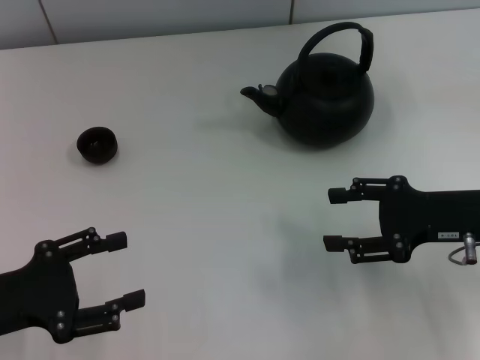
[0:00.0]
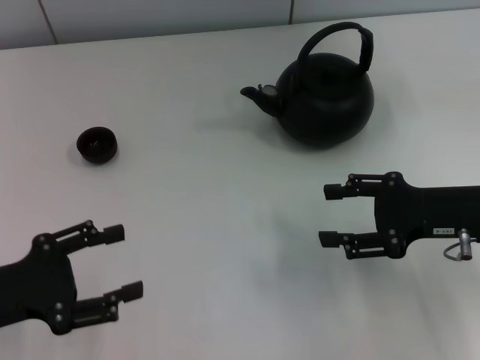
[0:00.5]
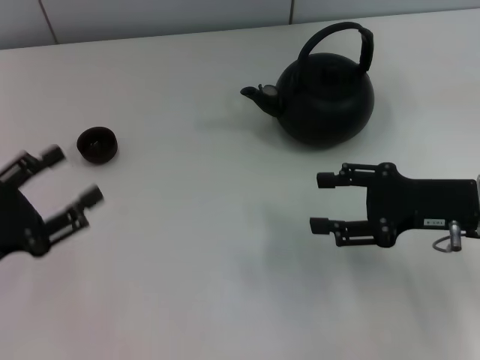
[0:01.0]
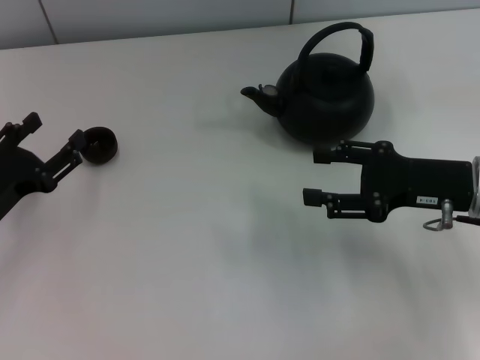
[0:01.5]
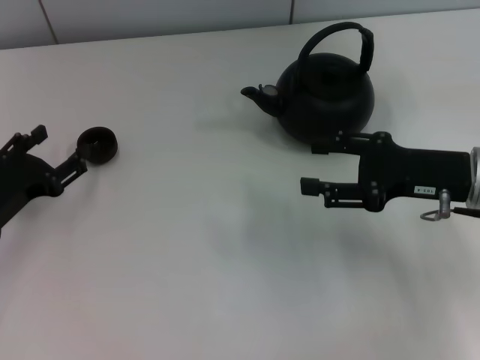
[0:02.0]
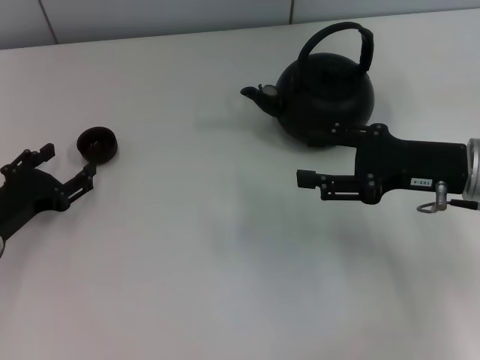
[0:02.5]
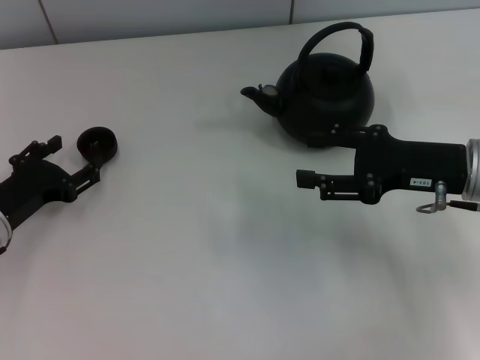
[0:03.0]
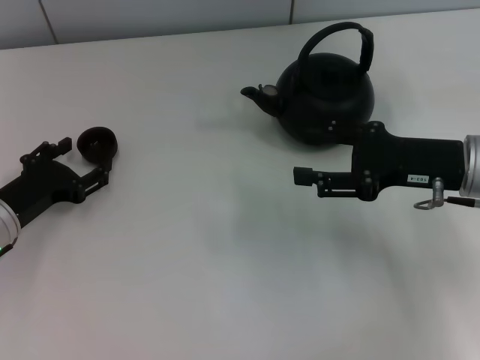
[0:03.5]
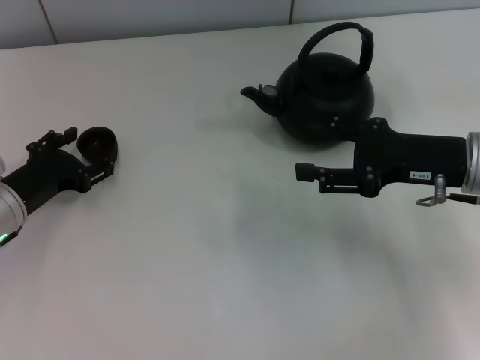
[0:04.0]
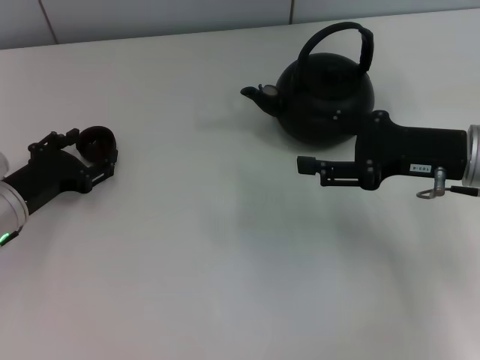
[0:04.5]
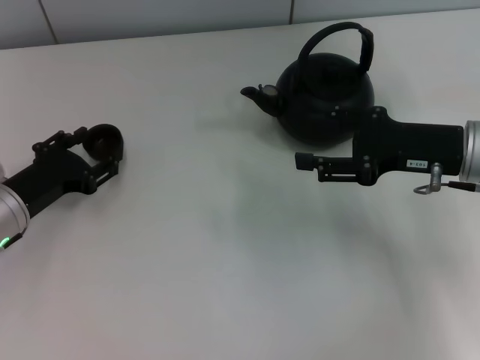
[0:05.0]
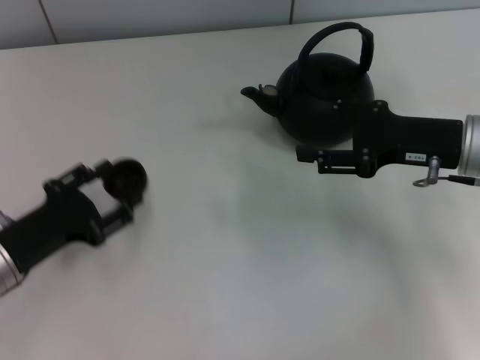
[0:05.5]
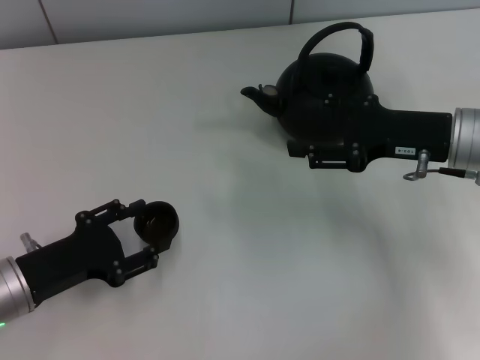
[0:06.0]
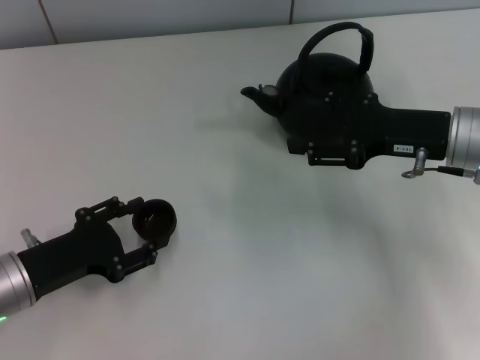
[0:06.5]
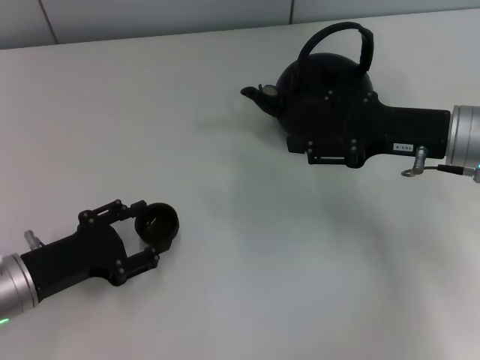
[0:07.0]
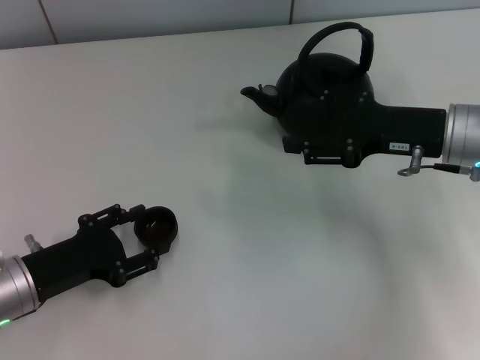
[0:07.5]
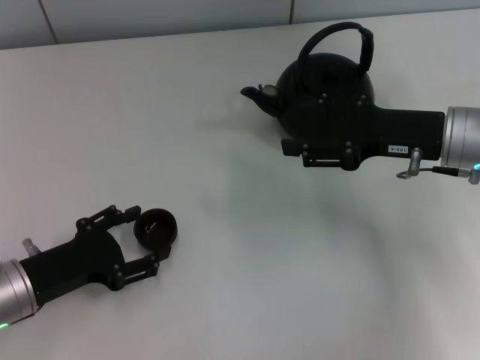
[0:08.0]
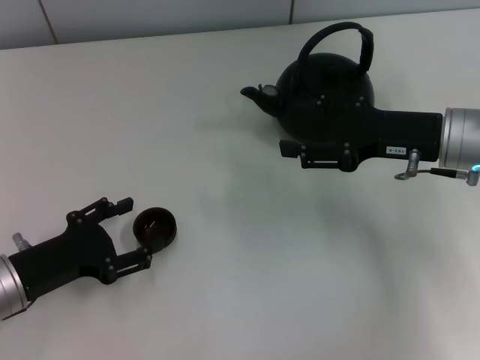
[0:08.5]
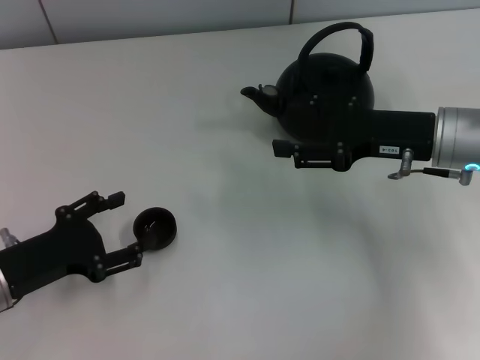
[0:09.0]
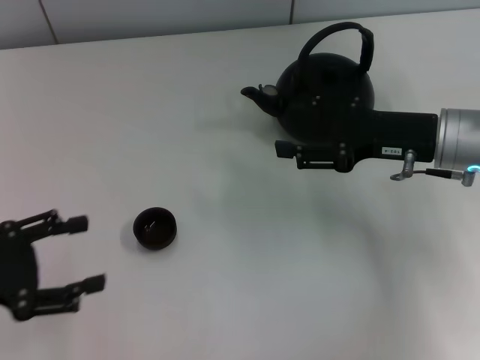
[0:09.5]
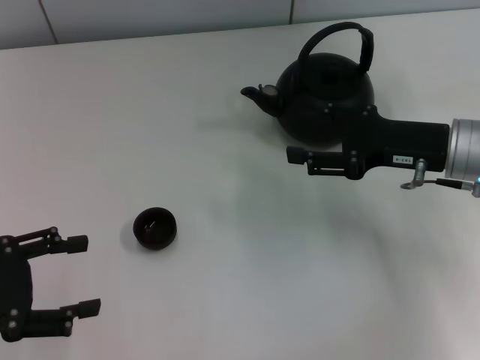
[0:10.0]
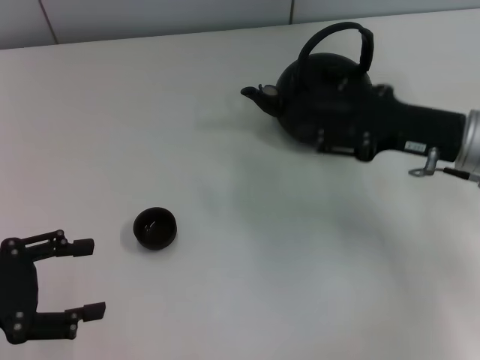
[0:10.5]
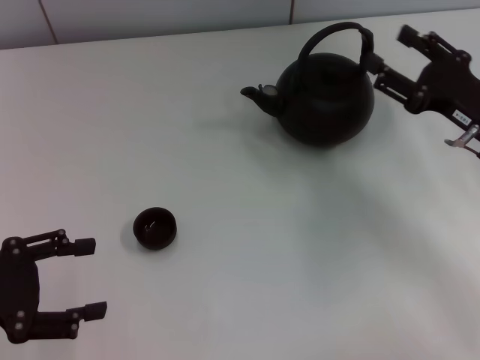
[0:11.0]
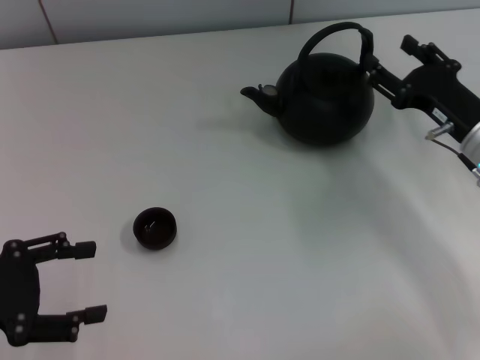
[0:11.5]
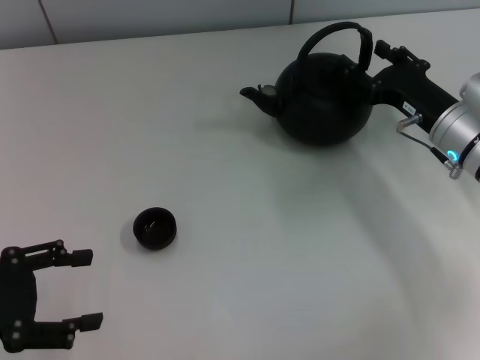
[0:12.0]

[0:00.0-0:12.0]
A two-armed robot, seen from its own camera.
Task of the whole recording: Grasp the handle of the teapot with one hand and pour tea into the teacup.
Step, 0:00.0 to 0:05.0: Pick up the teacup with the left gripper.
Step, 0:06.0 to 0:08.0: Place the teacup in the center of view with the left gripper.
0:00.0 to 0:02.0: The left gripper moves forward, roughly 10 cm.
0:02.0 to 0:04.0: There are only small adjustments of the grippers.
0:04.0 to 0:06.0: The left gripper heads backward, covering some 10 cm, and closes up.
0:06.0 to 0:08.0: The two grippers keep their place.
0:08.0 to 0:10.0: The left gripper travels upward and to the left by approximately 10 cm, and opens its fingers.
0:10.0 to 0:12.0: The right gripper moves roughly 5 cm.

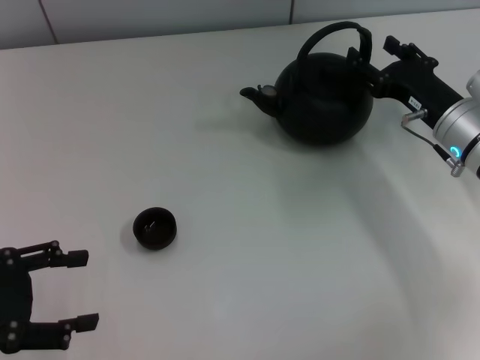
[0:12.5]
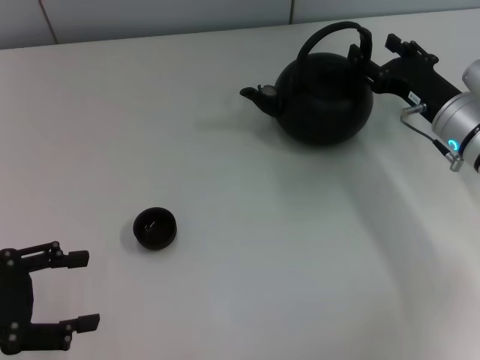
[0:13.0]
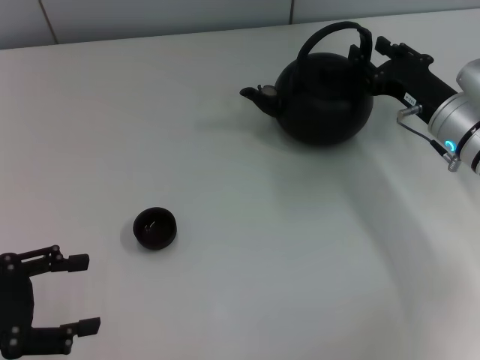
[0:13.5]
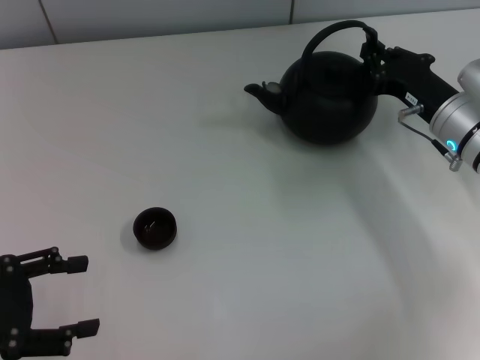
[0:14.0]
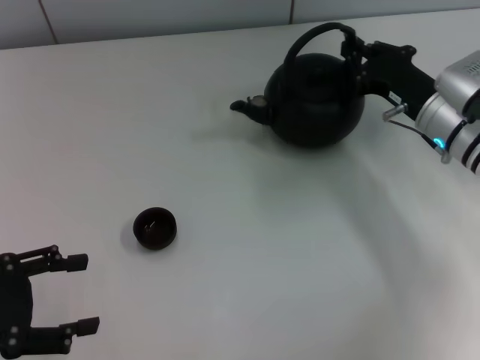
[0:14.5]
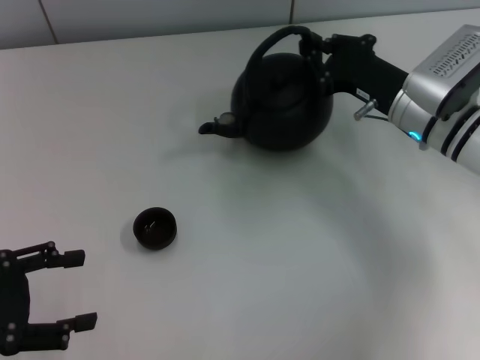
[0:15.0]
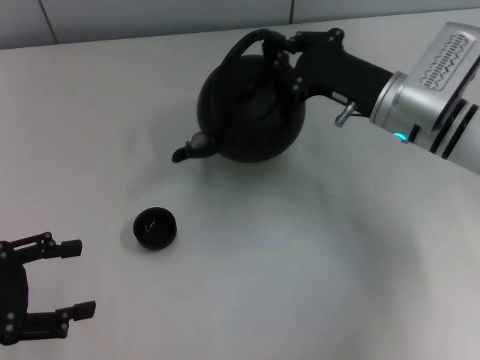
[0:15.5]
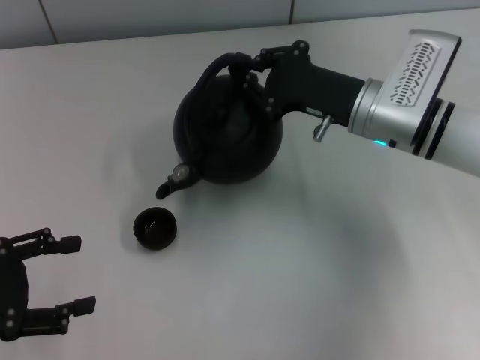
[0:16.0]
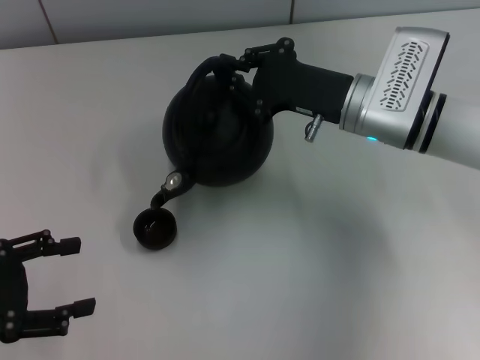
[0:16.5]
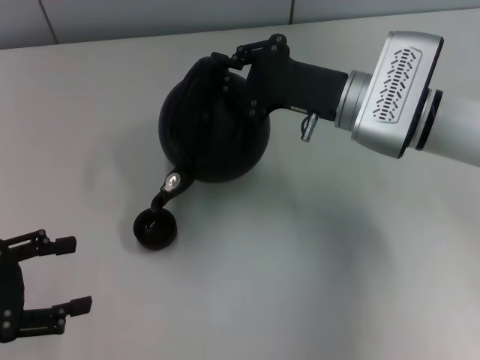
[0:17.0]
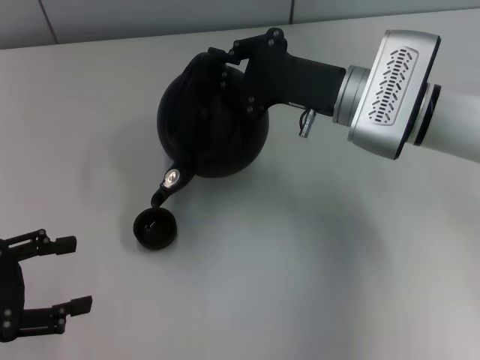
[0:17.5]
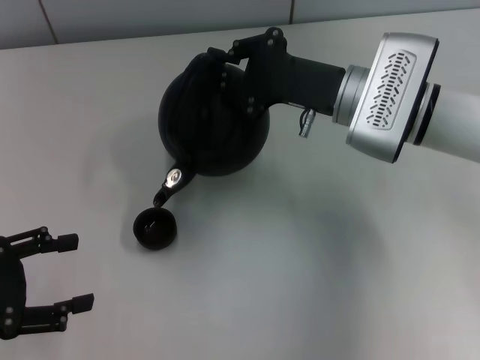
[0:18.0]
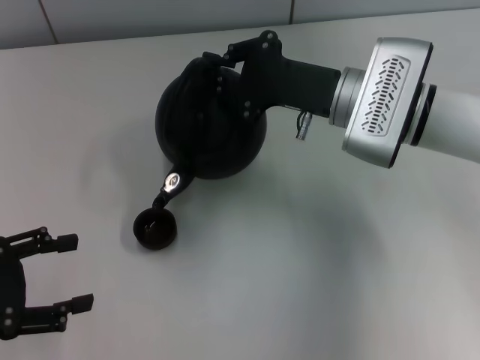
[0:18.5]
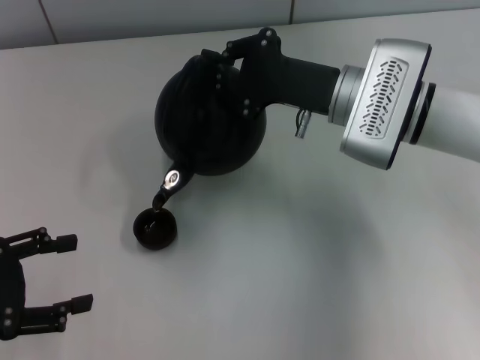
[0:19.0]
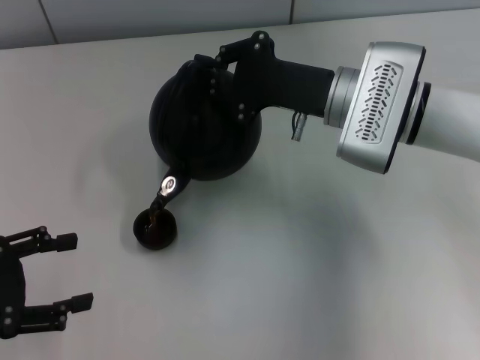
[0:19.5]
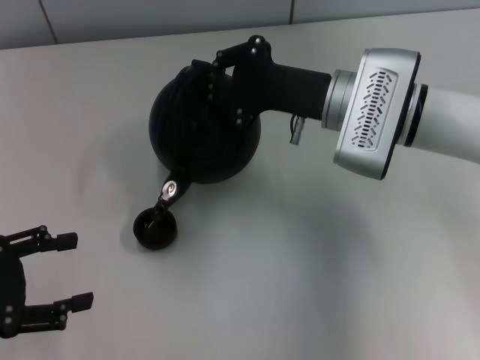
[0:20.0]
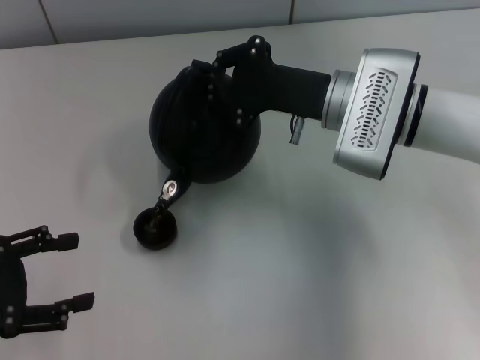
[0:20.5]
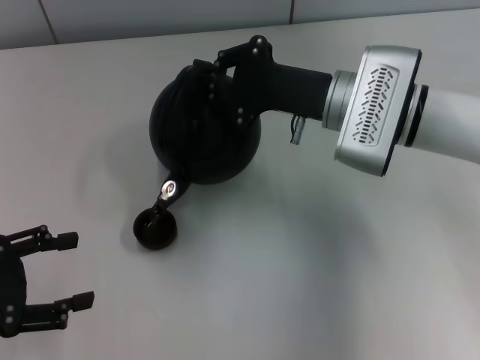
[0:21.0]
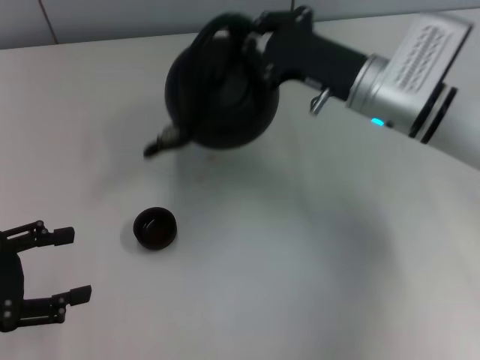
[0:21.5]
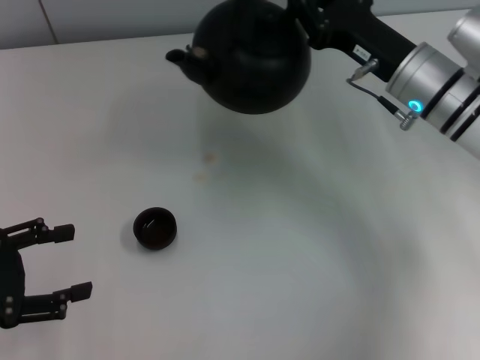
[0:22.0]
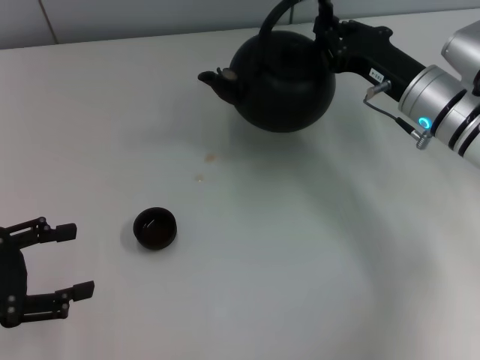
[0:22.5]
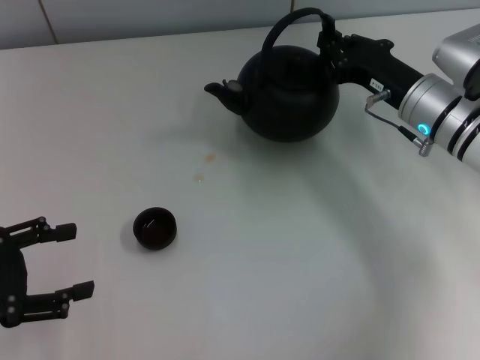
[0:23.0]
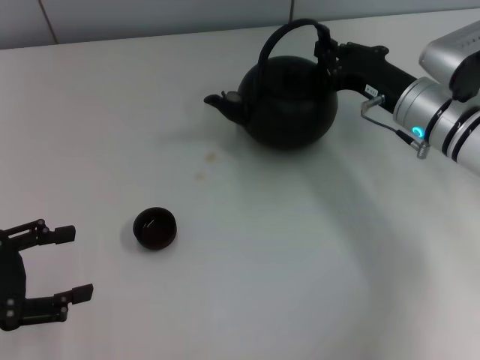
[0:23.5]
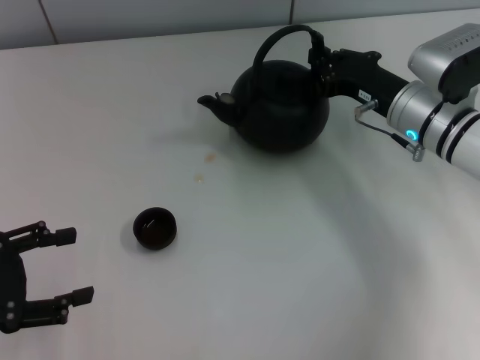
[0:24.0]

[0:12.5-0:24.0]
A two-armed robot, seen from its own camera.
Task of the whole recording: Grasp the handle of the teapot with one hand and pour tea into the teacup.
Step, 0:12.5 to 0:15.0: Pick up the teapot with the right gripper.
0:12.5 to 0:14.5: The right gripper closes up.
0:14.5 to 0:16.5: The right gripper goes roughly 10 cm to the left.
0:16.5 to 0:20.0: There are only small adjustments of the grippers.
0:20.0 to 0:22.0: The right gripper travels to the right by approximately 5 cm.

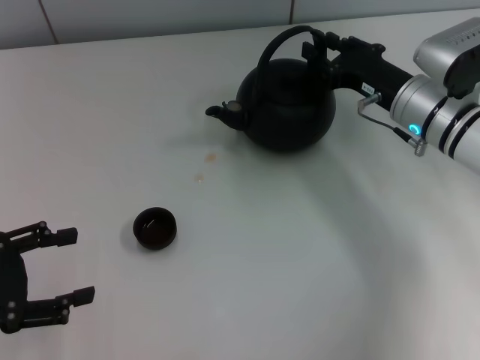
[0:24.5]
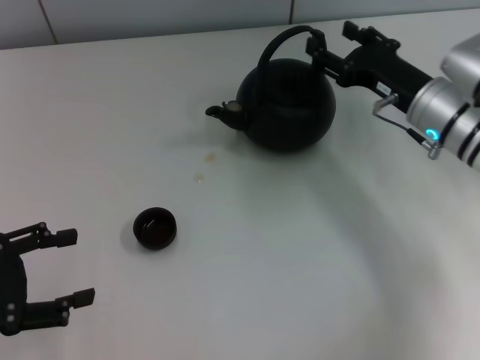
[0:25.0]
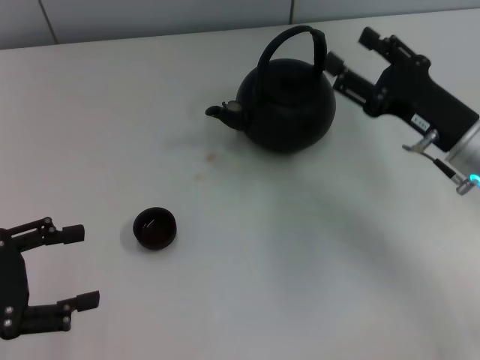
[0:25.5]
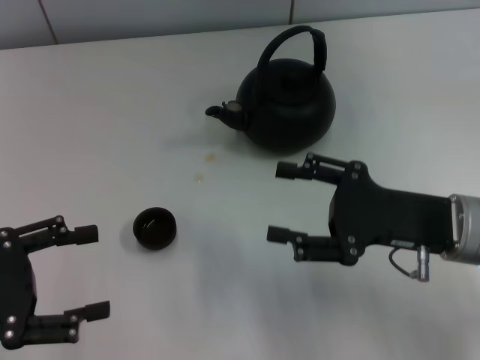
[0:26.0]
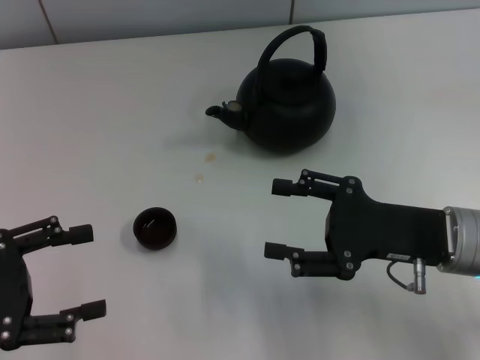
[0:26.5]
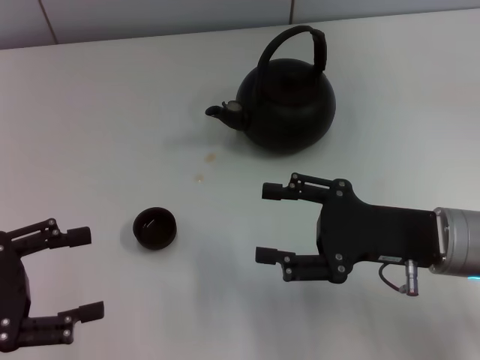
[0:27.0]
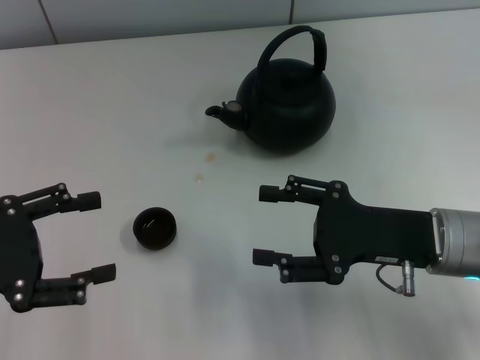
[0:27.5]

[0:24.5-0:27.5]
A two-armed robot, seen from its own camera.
Task of the whole recording: Grasp the handle of the teapot with one hand and pour tea into the teacup.
0:24.5 to 0:26.0: The right gripper shifts about 15 cm backward, and opens up.
0:26.0 to 0:27.5: The grippers stay close to where they were, moving slightly.
